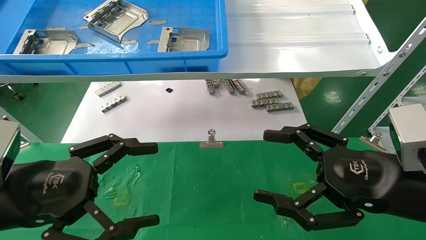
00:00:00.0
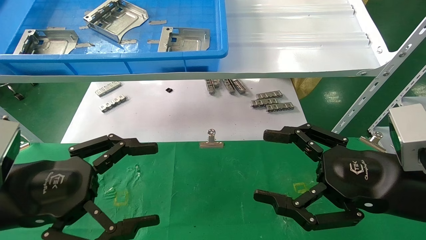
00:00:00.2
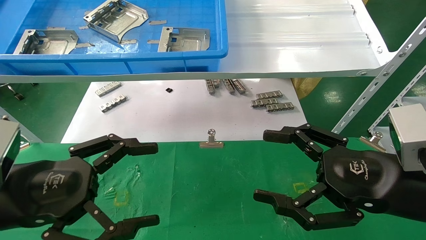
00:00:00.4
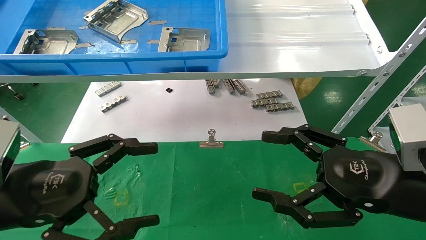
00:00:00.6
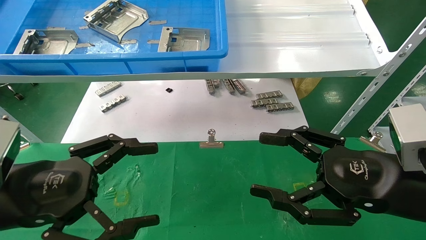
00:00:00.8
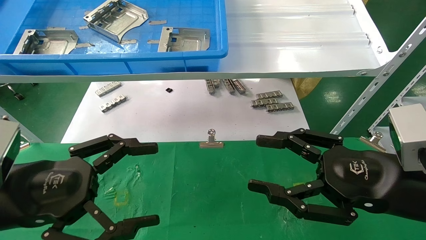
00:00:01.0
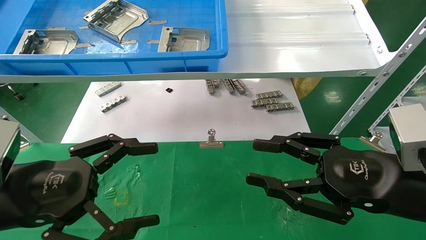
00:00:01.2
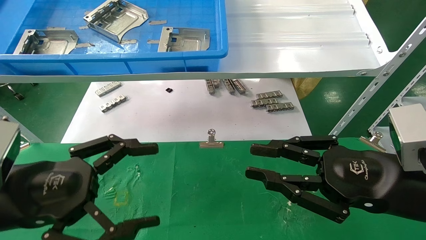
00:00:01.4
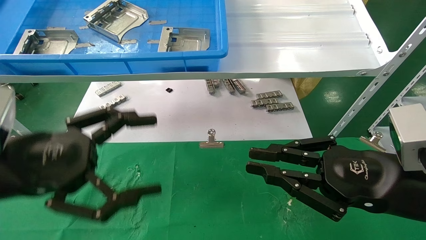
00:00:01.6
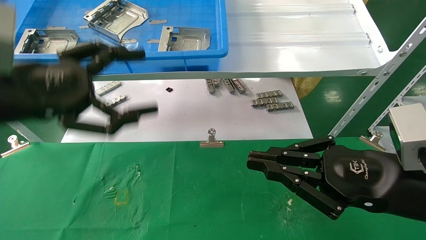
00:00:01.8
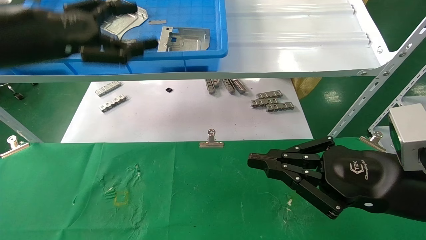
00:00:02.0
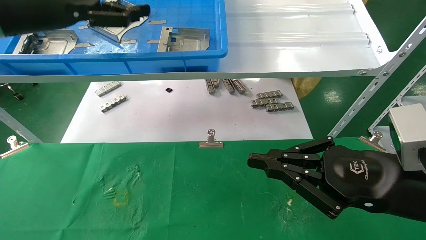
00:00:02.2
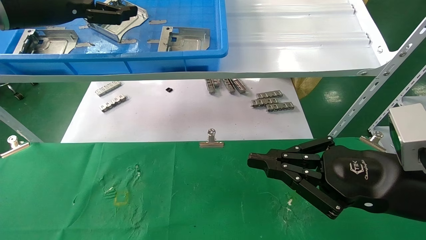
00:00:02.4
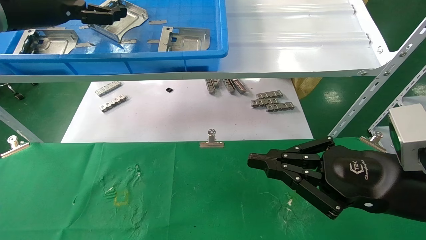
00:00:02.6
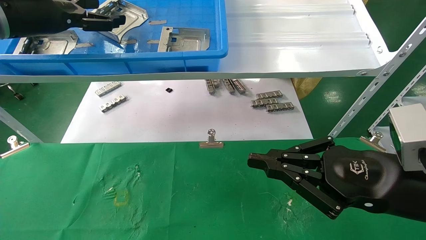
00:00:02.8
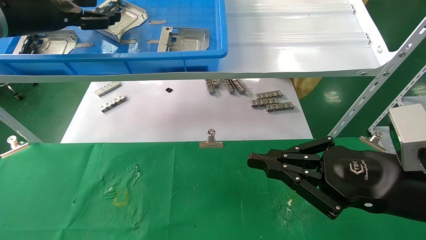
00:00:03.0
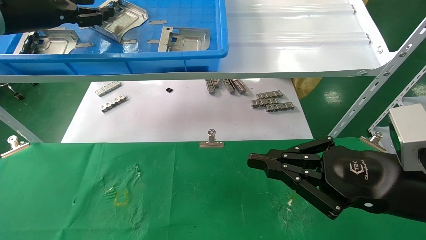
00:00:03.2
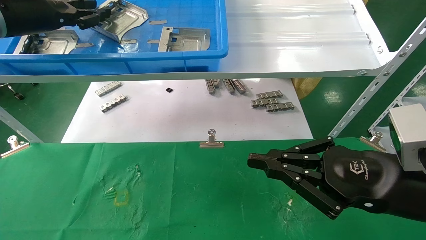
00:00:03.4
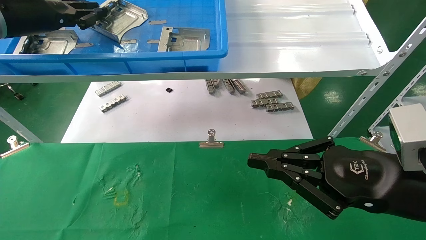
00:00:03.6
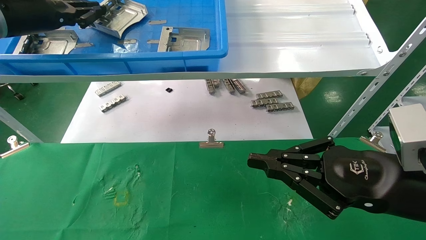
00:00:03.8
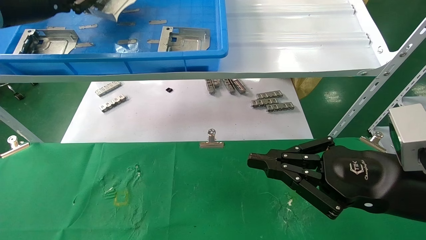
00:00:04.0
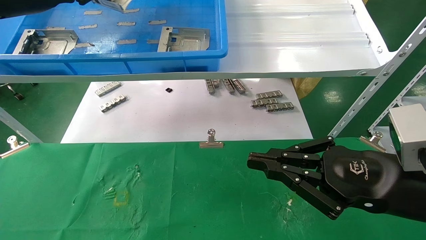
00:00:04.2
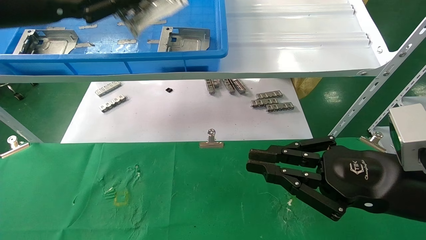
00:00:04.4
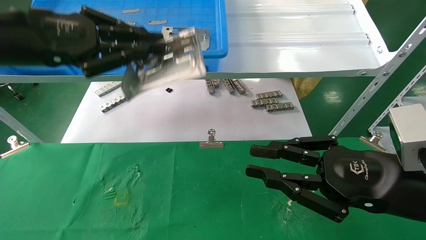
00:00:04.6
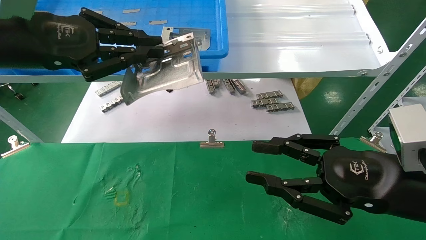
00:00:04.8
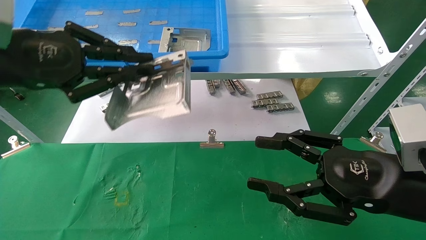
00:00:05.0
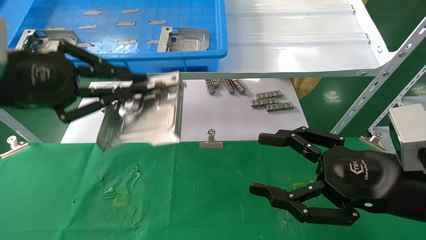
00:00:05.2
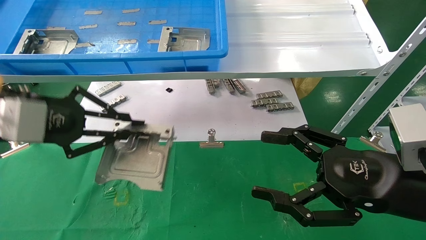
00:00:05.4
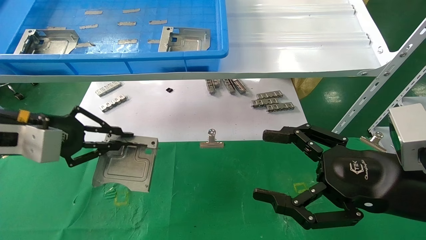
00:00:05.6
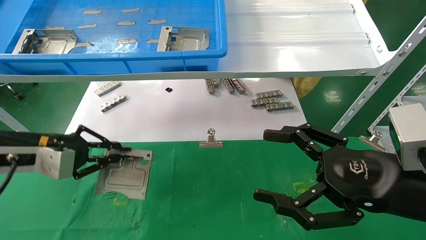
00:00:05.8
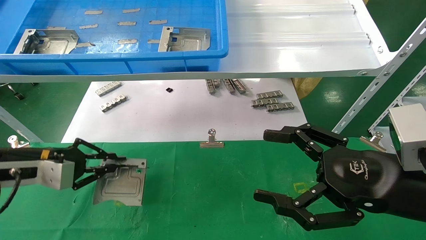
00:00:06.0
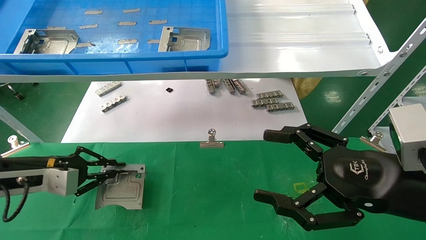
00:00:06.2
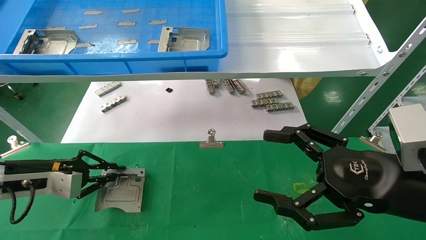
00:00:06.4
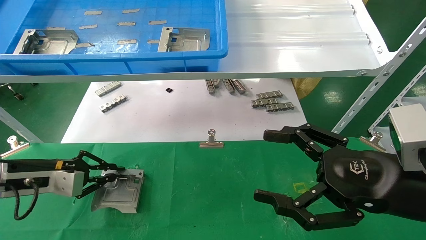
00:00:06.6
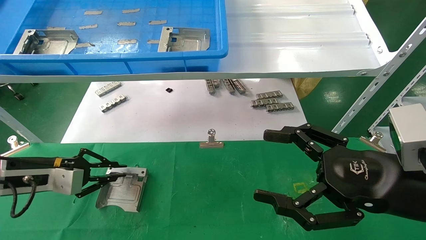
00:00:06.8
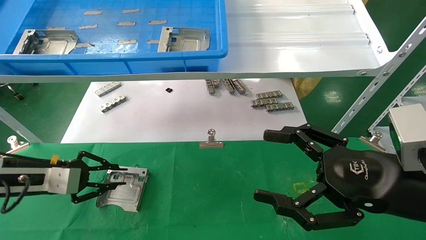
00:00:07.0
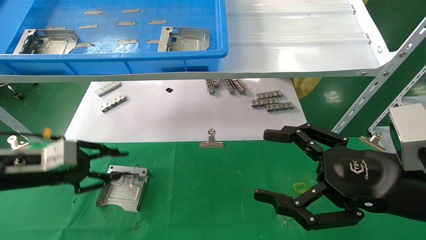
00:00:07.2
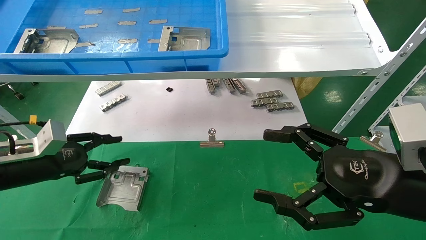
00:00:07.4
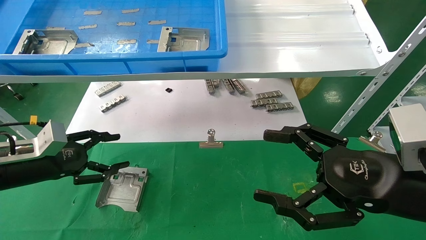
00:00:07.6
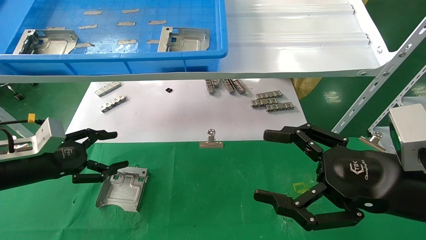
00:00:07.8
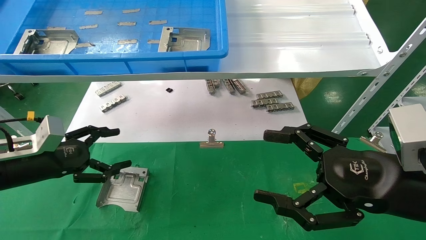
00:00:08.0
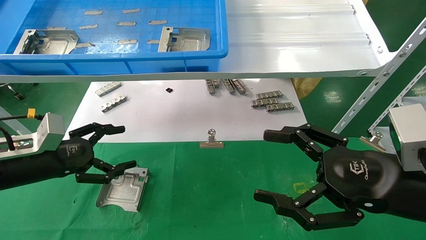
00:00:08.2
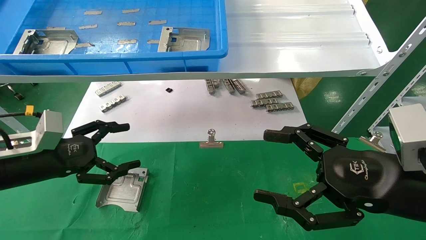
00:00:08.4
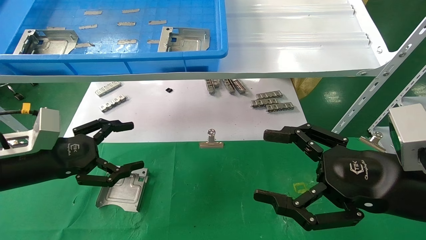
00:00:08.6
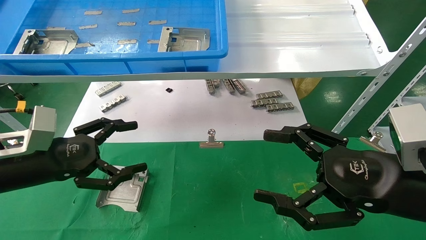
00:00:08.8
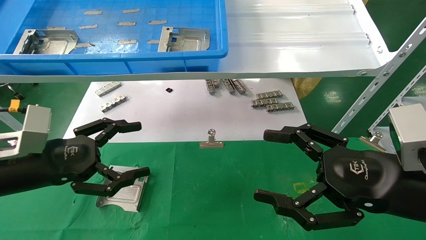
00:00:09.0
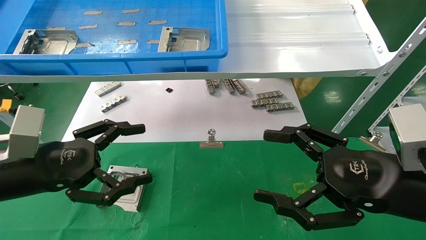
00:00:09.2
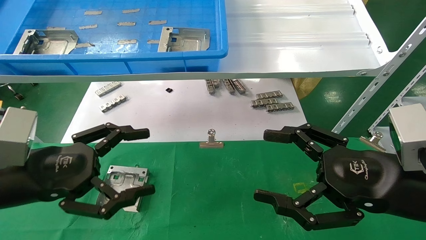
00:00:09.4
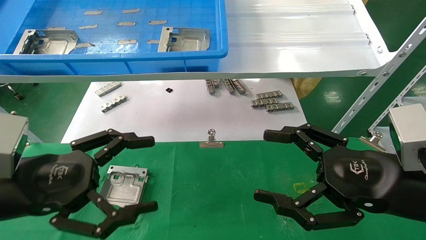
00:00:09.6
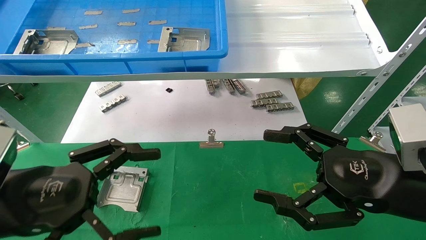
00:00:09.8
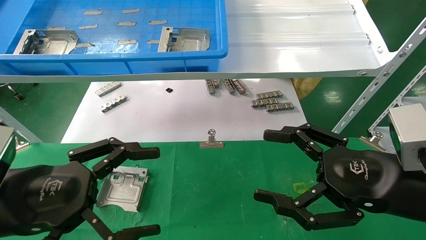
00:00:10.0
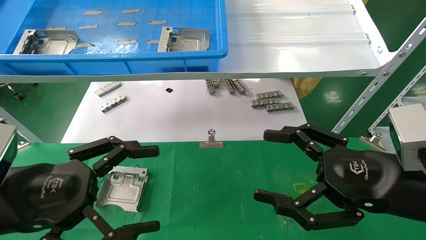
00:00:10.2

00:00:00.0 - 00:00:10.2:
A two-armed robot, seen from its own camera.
Task of the whole recording: use the mechanical arm to pick up the parts and place them on the table.
Step, 00:00:01.8 - 00:00:03.6: Pick up the hard drive bracket from the feeding area.
Step, 00:00:03.8 - 00:00:06.6: Place the hard drive bracket into the box.
00:00:00.0 - 00:00:01.4: The right gripper closes.
00:00:01.4 - 00:00:03.0: The right gripper closes up, while the left gripper travels forward and upward by roughly 30 cm.
00:00:03.0 - 00:00:04.4: The left gripper travels backward by about 5 cm, and closes.
00:00:04.4 - 00:00:05.8: The right gripper opens its fingers. The left gripper travels downward by some 20 cm.
00:00:05.8 - 00:00:07.2: The left gripper shifts approximately 5 cm downward.
00:00:07.2 - 00:00:08.8: The left gripper travels to the right and backward by approximately 5 cm, and opens.
00:00:08.8 - 00:00:10.2: The left gripper goes some 10 cm backward and to the right.

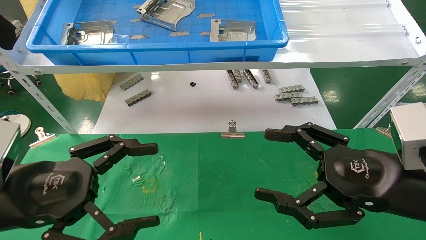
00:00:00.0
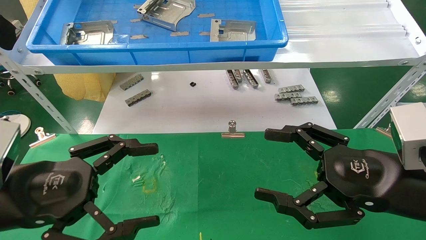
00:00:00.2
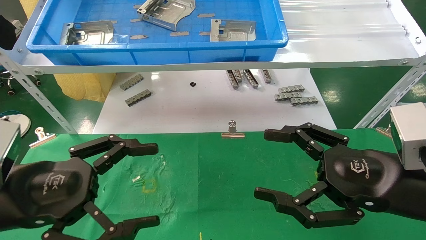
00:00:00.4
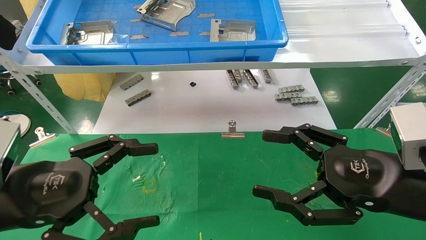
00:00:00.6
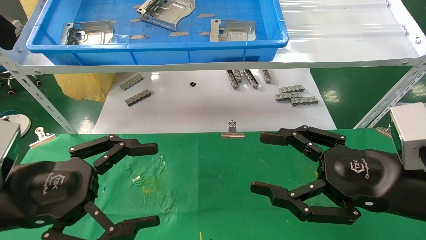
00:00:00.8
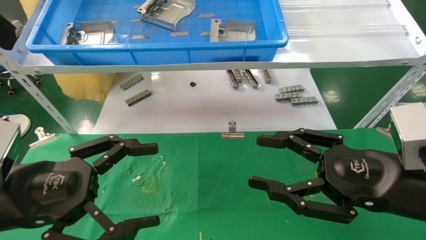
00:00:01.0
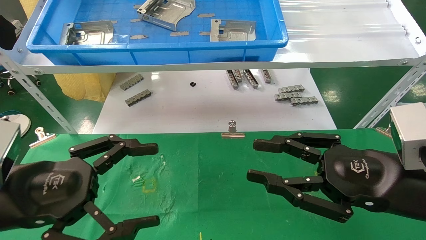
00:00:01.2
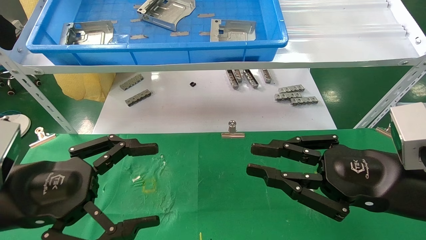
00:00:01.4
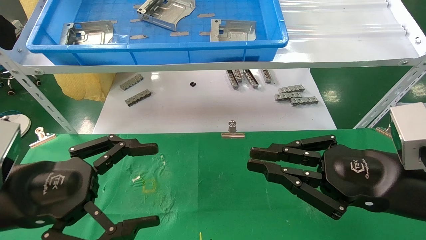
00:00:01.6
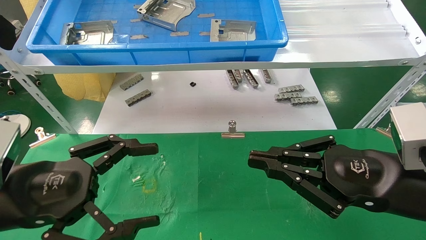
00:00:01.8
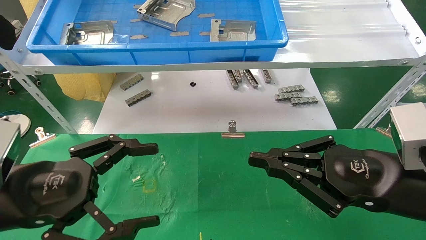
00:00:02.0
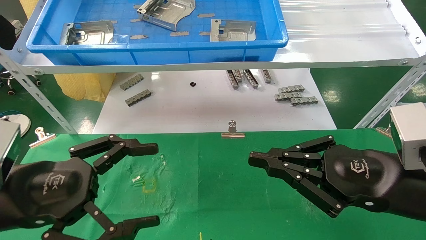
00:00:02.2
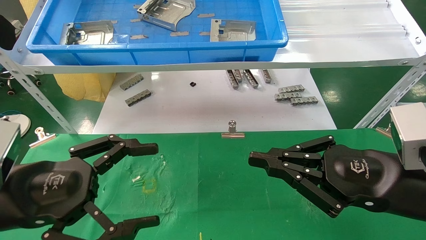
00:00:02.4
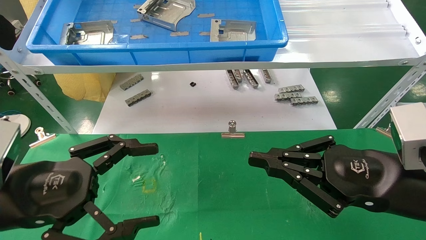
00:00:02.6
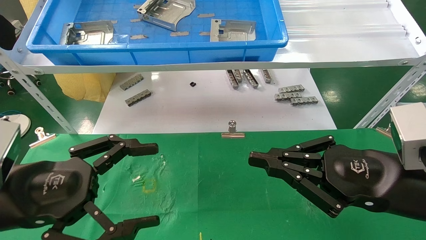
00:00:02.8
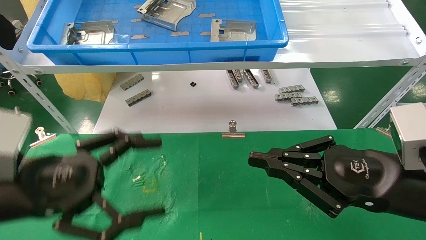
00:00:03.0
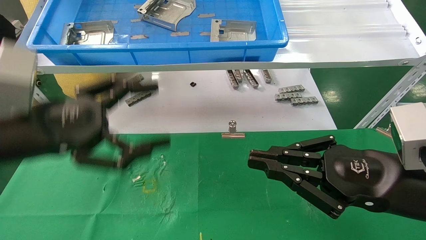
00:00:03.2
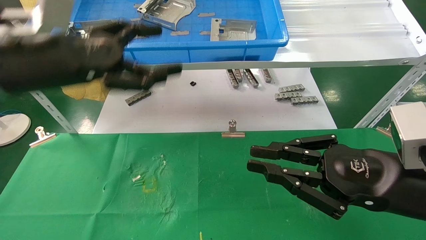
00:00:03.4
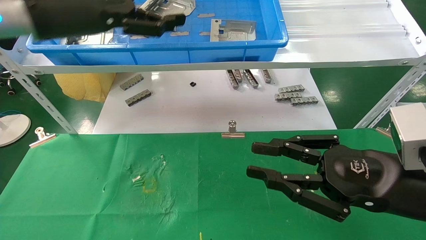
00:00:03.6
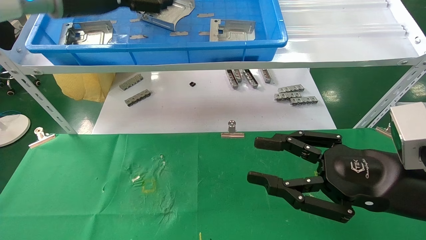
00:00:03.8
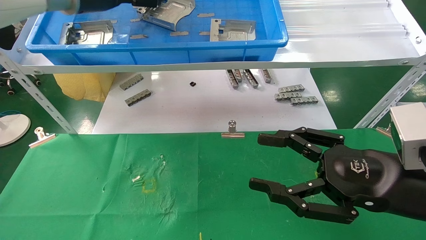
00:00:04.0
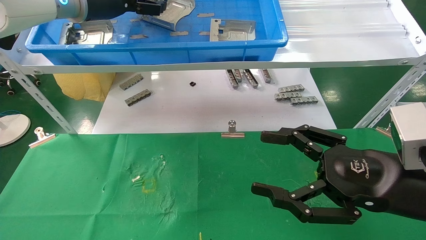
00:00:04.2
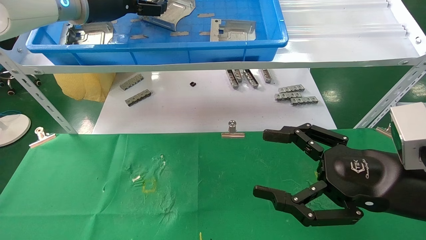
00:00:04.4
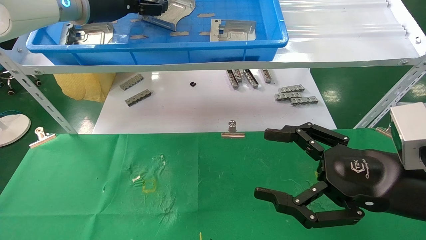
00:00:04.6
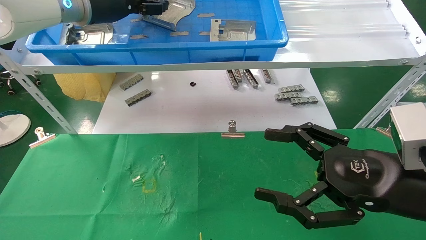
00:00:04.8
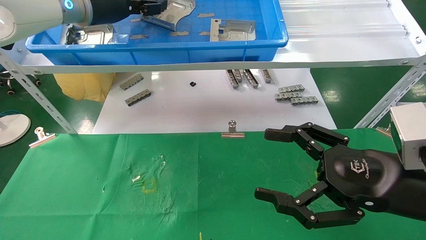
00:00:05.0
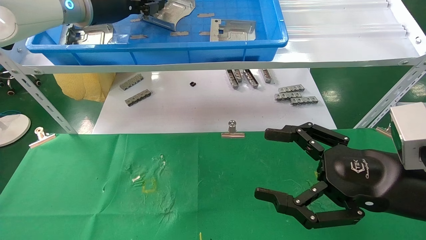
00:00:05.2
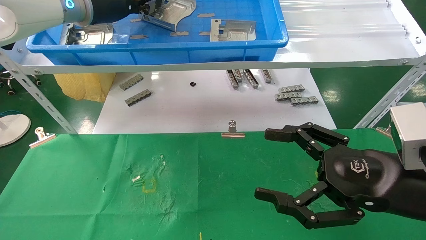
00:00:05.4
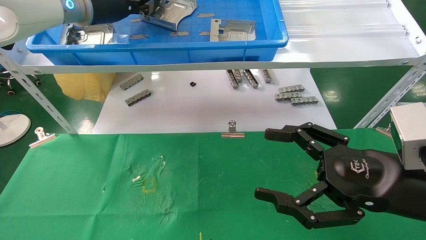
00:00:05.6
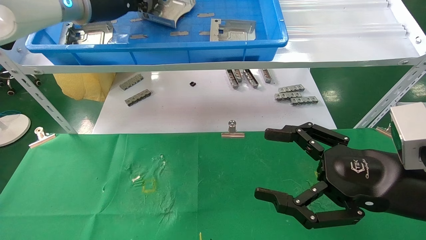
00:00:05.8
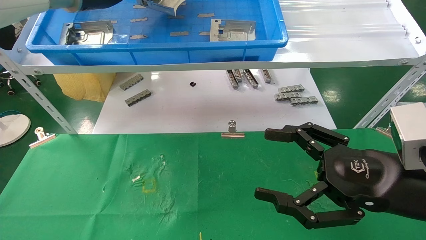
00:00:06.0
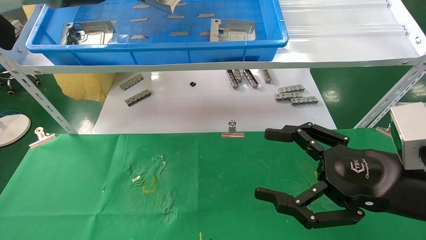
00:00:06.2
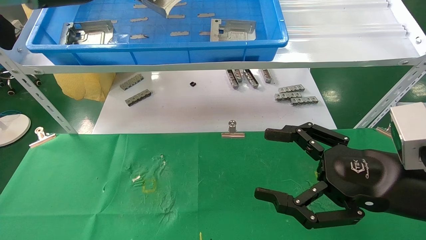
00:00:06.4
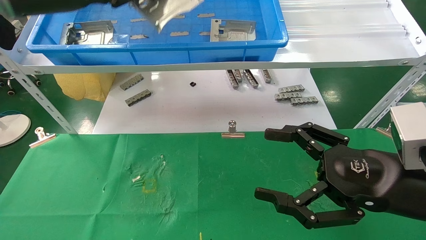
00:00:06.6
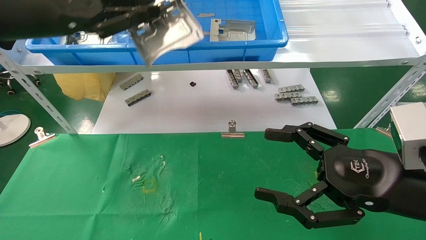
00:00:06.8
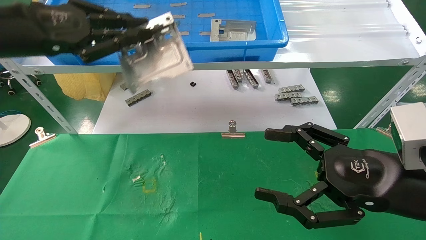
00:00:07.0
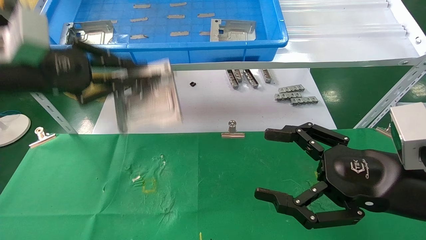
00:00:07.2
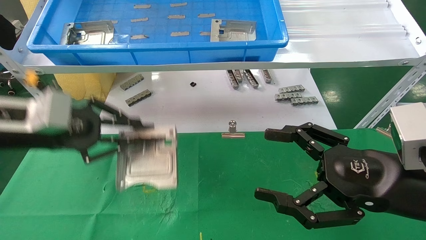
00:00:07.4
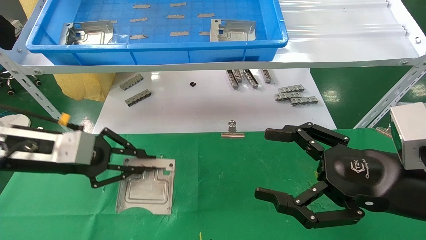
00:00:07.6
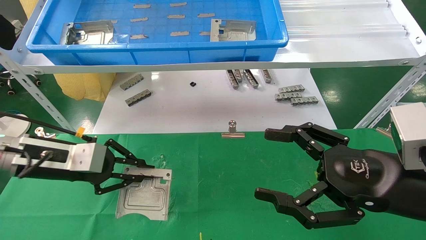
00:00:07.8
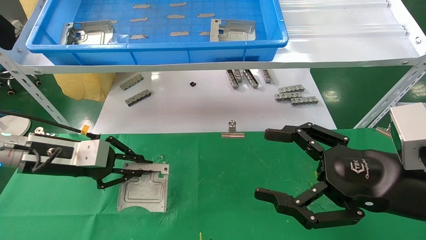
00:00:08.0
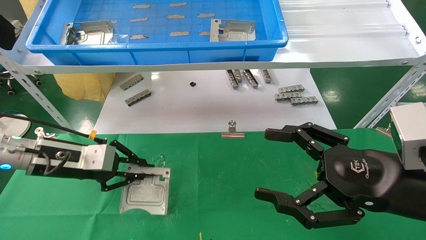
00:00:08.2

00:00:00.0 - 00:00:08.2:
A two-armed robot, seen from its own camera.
Task of the whole recording: use the mechanical arm to pick up the parts and place them on the table.
Step, 00:00:03.2 - 00:00:05.4: Pick up the hard drive bracket from the feeding area.
00:00:00.0 - 00:00:01.6: The right gripper closes its fingers.
00:00:01.6 - 00:00:03.2: The left gripper is displaced upward and forward by roughly 10 cm.
00:00:03.2 - 00:00:05.0: The left gripper shifts about 25 cm forward and upward, and closes its fingers, while the right gripper opens its fingers.
00:00:05.0 - 00:00:06.6: The left gripper is displaced backward and to the left by approximately 10 cm, and closes its fingers.
00:00:06.6 - 00:00:08.2: The left gripper heads downward, covering approximately 25 cm.
